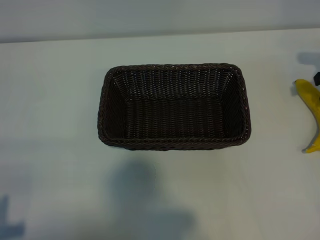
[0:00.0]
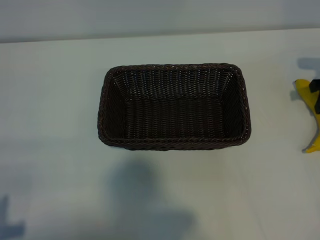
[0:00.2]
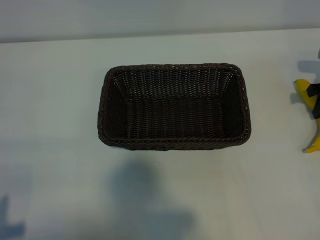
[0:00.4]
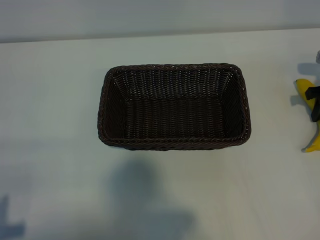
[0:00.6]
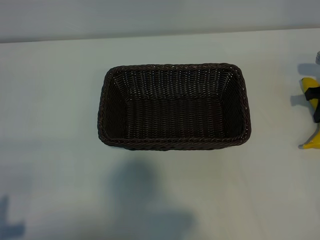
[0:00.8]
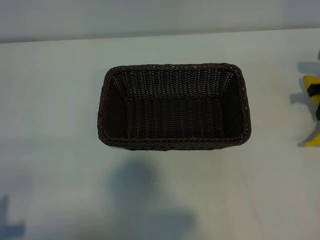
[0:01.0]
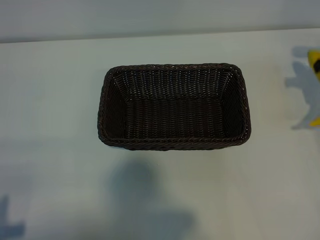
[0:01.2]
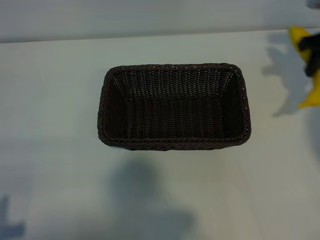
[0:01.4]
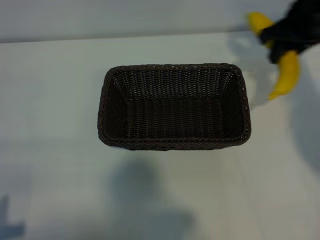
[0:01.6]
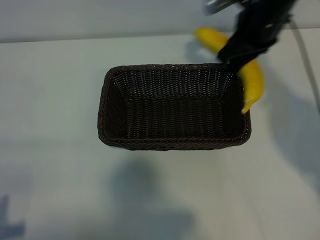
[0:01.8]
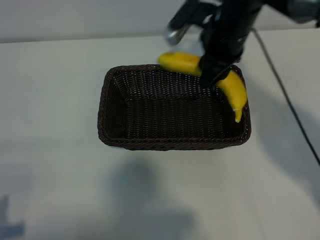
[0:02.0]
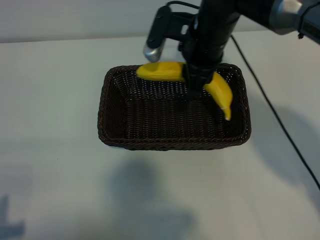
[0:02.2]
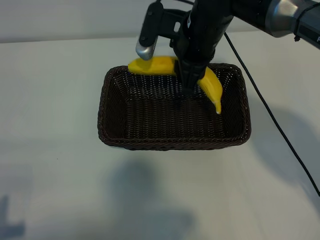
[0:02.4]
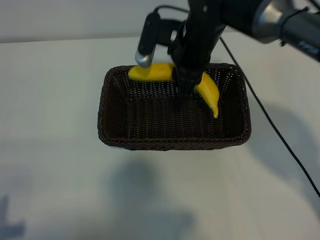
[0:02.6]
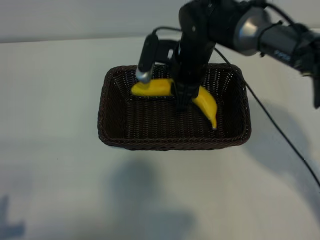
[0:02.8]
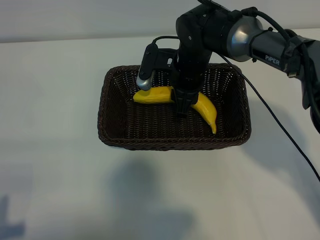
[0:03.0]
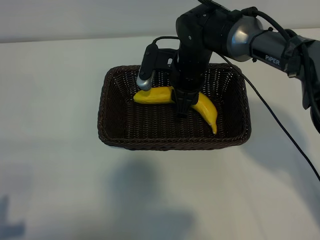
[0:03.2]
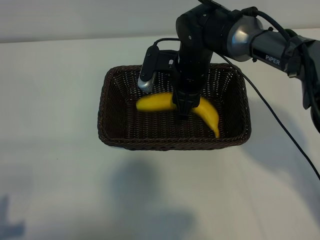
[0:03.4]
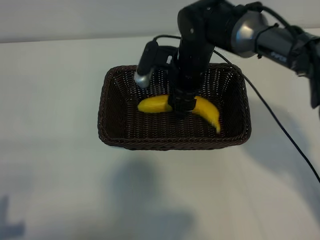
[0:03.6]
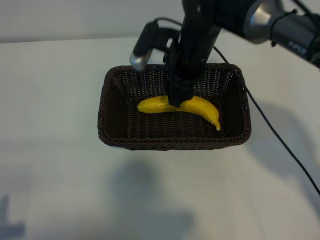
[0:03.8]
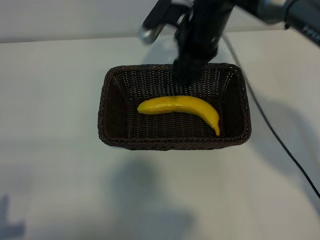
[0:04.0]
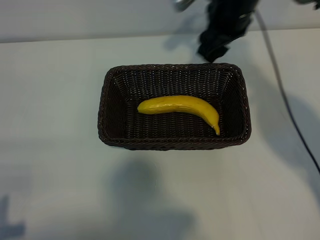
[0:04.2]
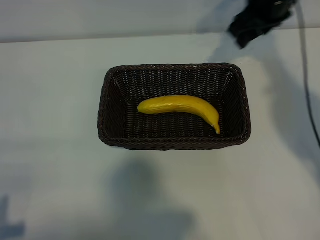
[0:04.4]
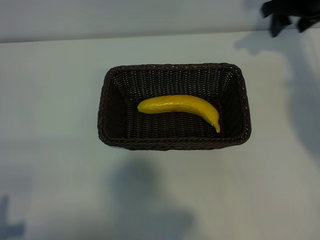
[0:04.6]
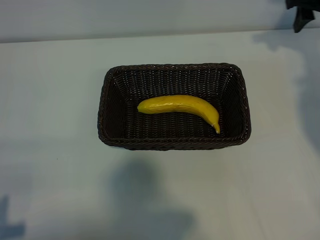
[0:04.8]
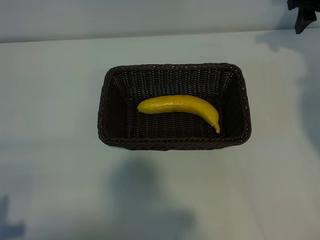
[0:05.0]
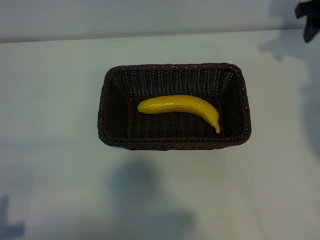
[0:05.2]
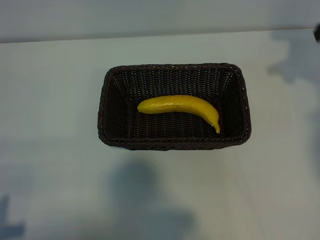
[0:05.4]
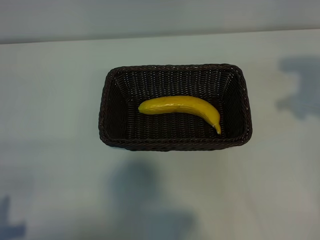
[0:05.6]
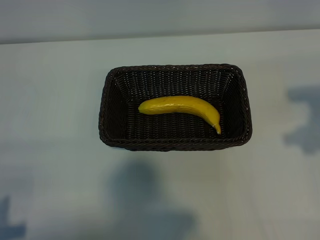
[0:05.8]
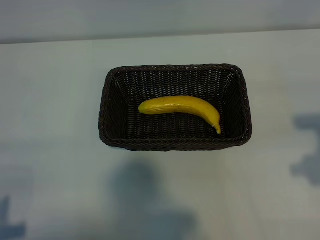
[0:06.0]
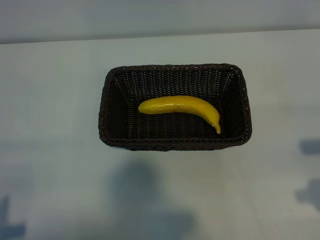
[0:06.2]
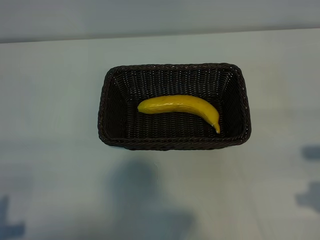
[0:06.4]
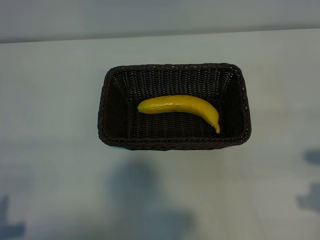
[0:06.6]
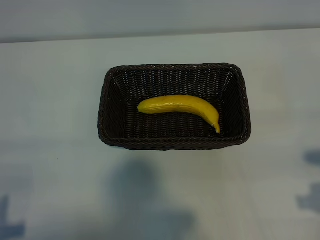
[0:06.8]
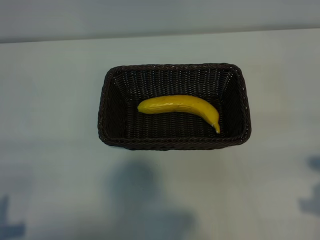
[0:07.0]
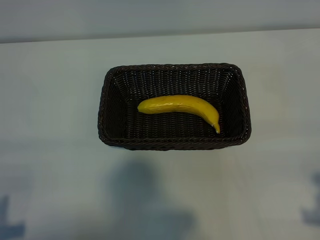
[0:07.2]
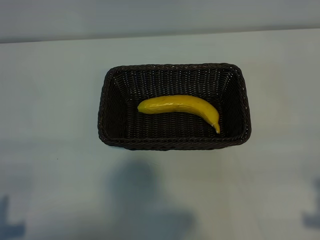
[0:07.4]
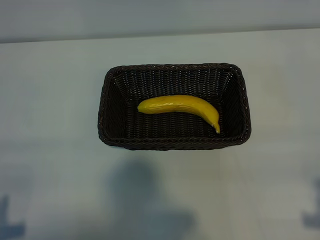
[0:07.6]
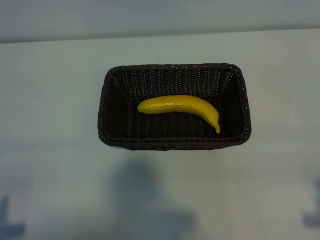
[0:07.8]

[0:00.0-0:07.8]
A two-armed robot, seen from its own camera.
Task of the whole recording: pick up the banana and put it into the basket.
Step, 0:01.0 to 0:03.8: Place the banana in the basket with right gripper.
